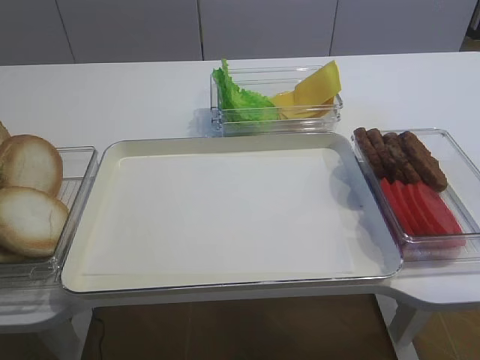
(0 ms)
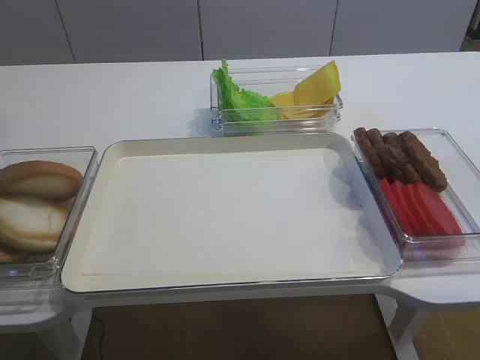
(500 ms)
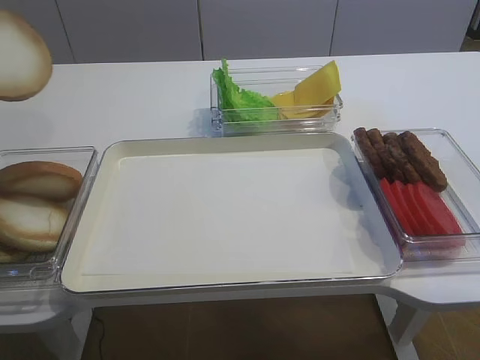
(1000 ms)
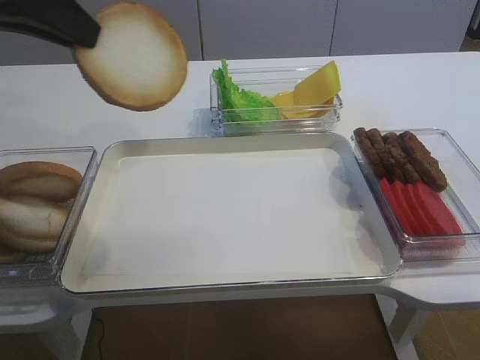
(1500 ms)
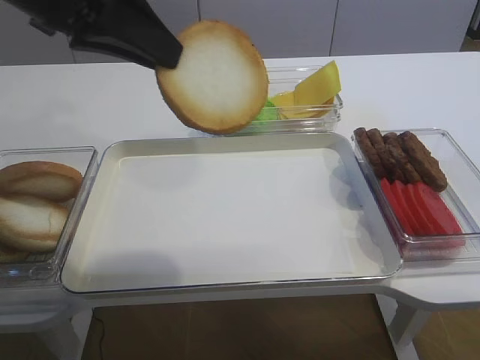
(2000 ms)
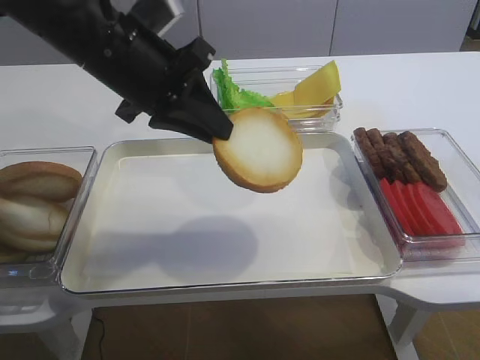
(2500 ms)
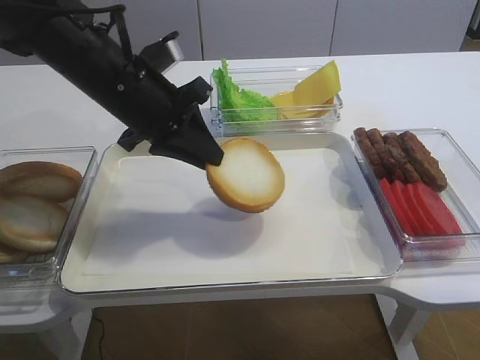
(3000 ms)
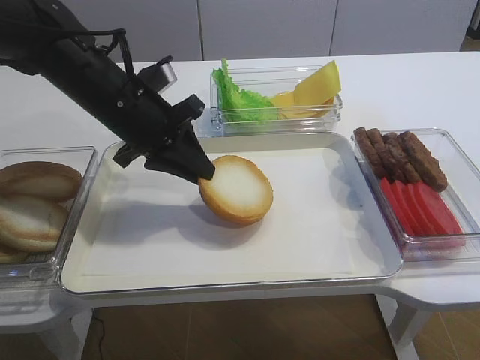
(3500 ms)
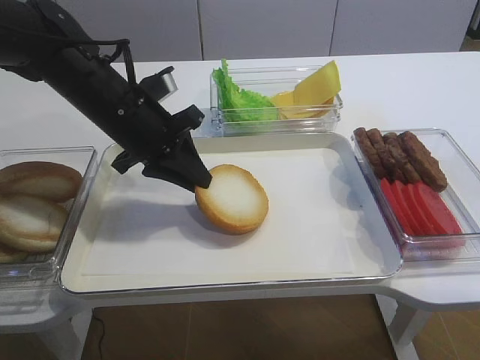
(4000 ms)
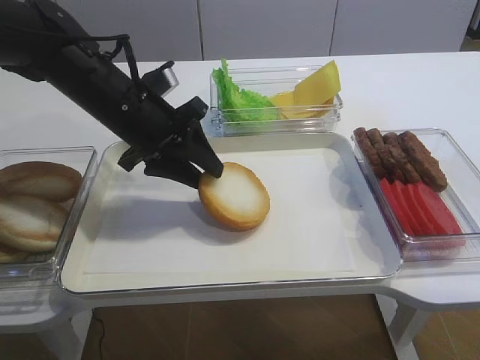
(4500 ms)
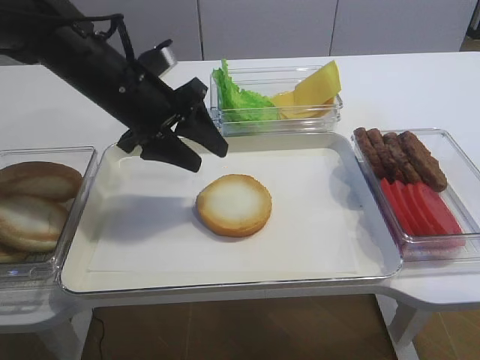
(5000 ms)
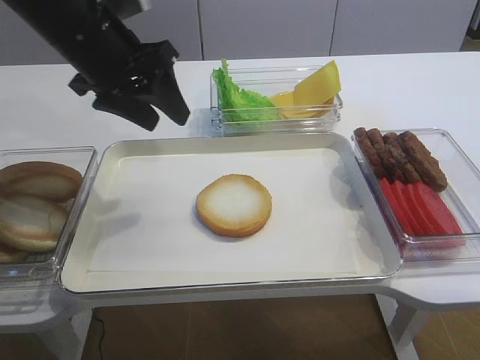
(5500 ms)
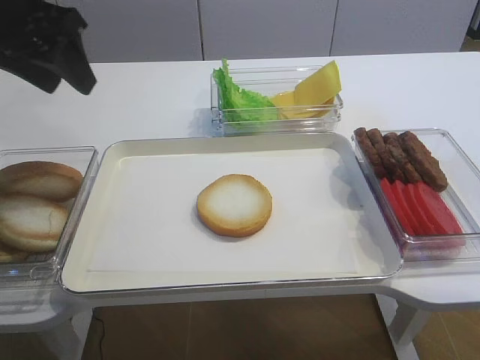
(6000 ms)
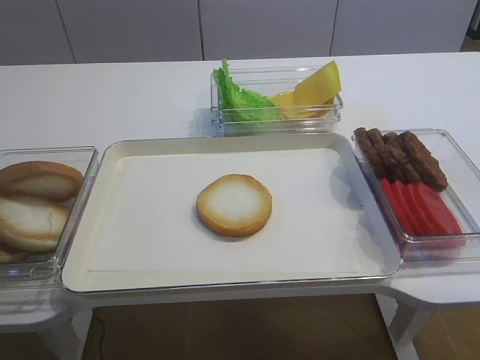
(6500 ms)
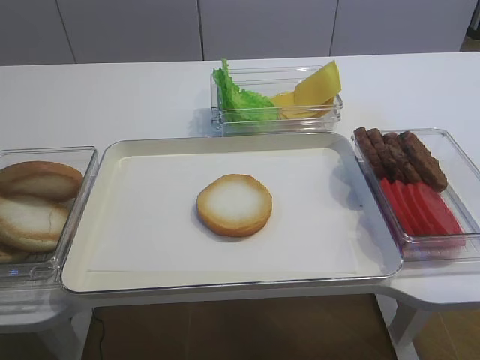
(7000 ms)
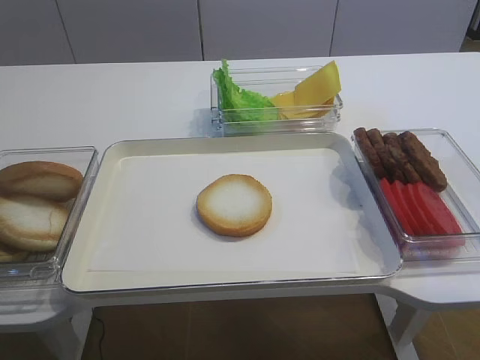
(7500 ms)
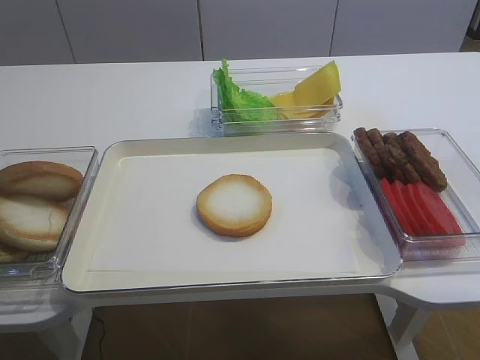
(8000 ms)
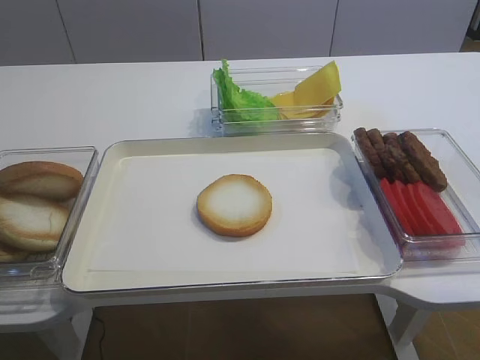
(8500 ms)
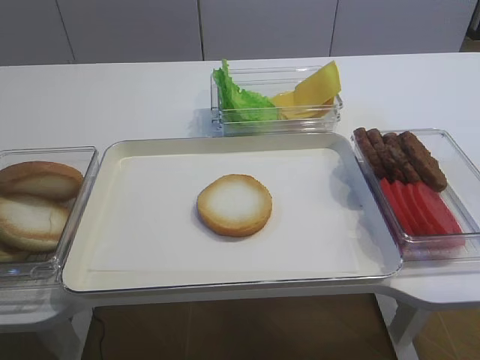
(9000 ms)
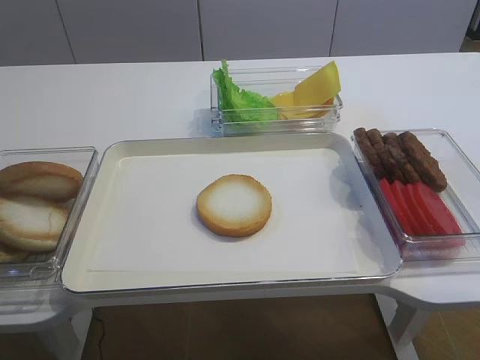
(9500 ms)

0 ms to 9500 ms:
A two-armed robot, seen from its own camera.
Step, 500 ms to 4500 ms: Place the bread slice on the tray with the left gripper.
0 ms to 2000 ms: The left gripper heads to the right and upward, covering roughly 20 cm.
2000 ms to 4000 ms: The left gripper is displaced downward and forward by approximately 20 cm.
4000 ms to 5500 ms: The left gripper travels upward by some 10 cm, and opens its fingers.
5500 ms to 7500 ms: The left gripper is displaced backward and to the left by about 30 cm.

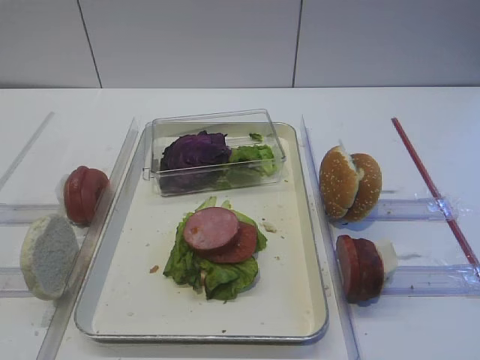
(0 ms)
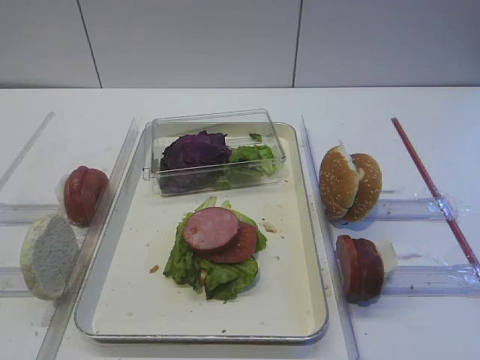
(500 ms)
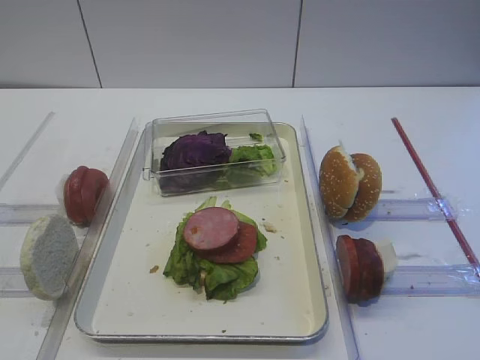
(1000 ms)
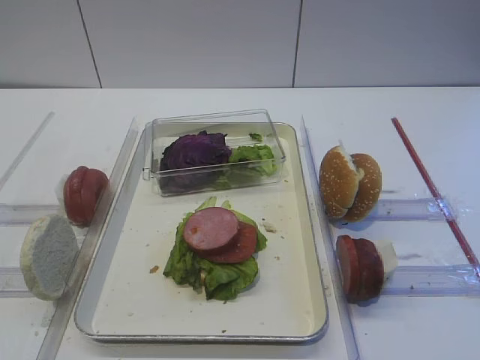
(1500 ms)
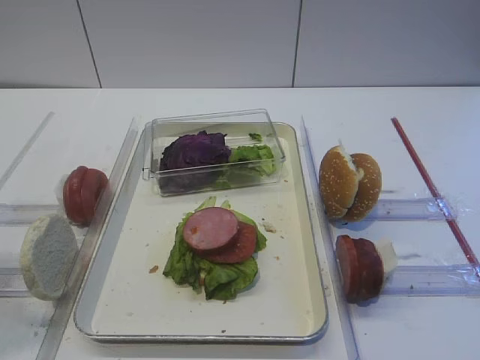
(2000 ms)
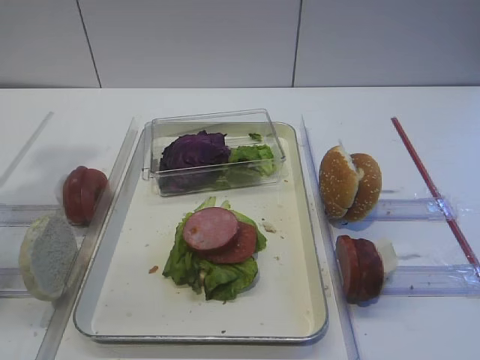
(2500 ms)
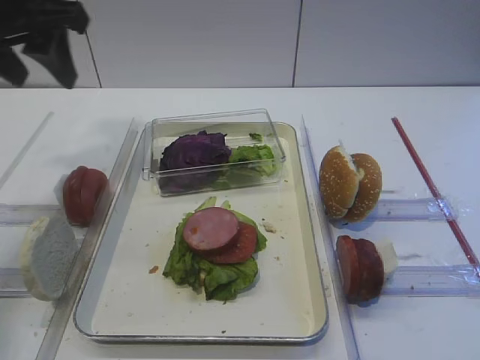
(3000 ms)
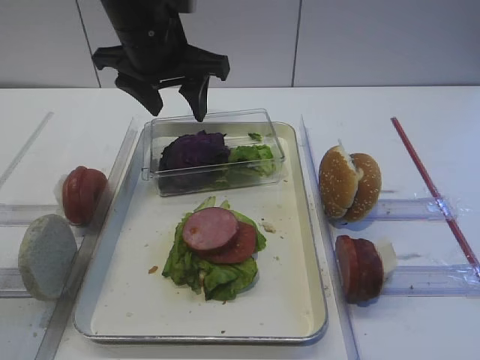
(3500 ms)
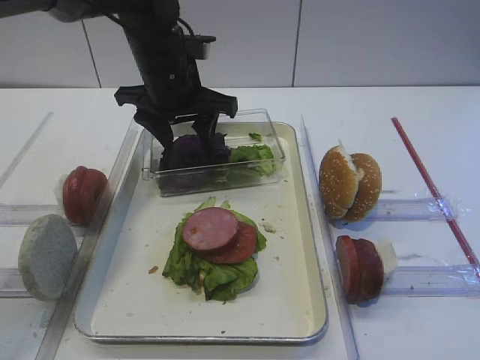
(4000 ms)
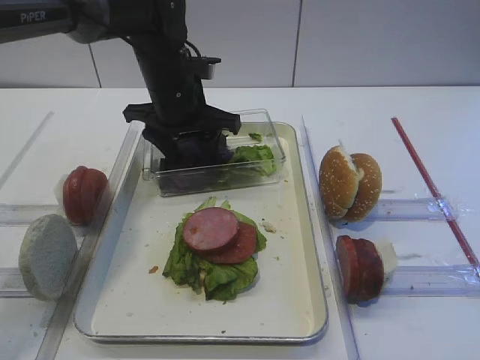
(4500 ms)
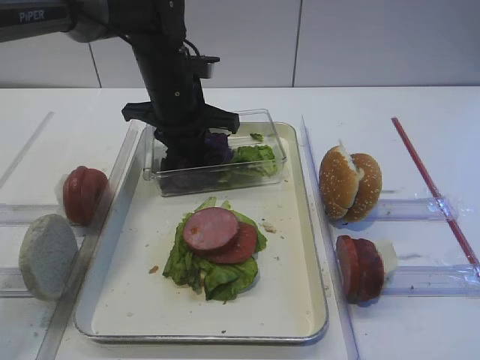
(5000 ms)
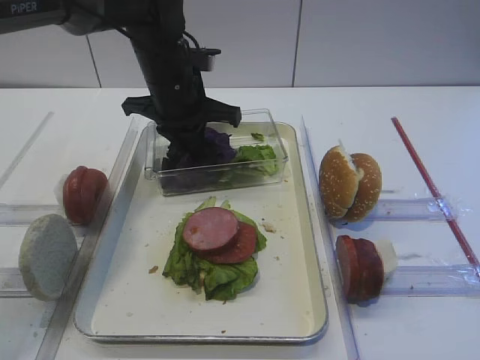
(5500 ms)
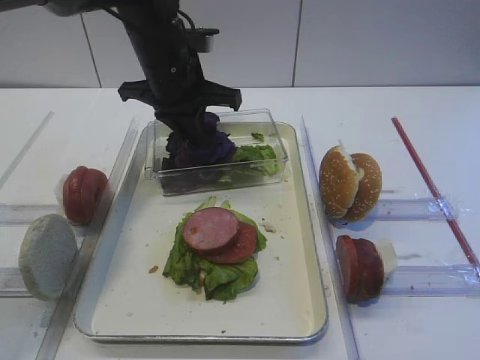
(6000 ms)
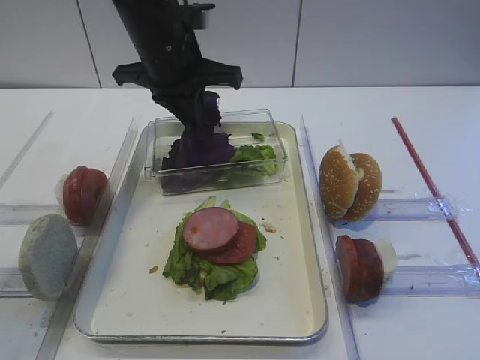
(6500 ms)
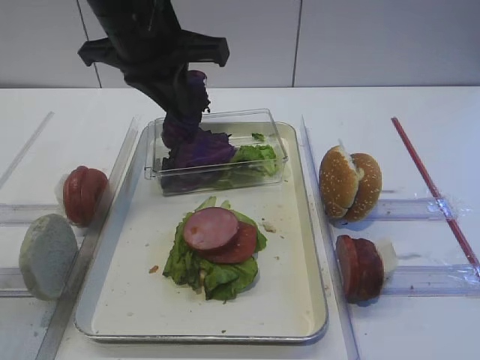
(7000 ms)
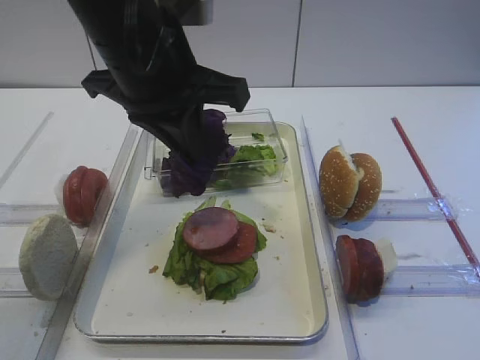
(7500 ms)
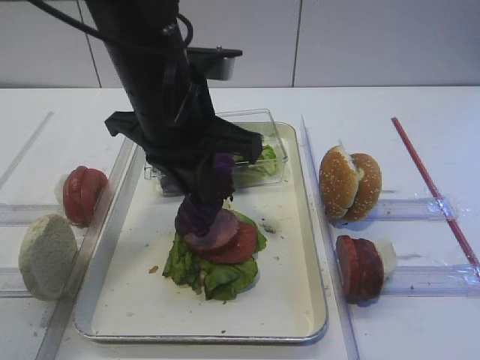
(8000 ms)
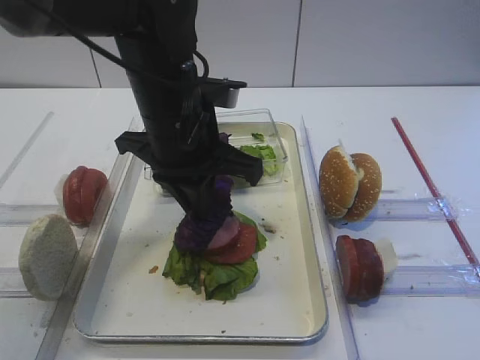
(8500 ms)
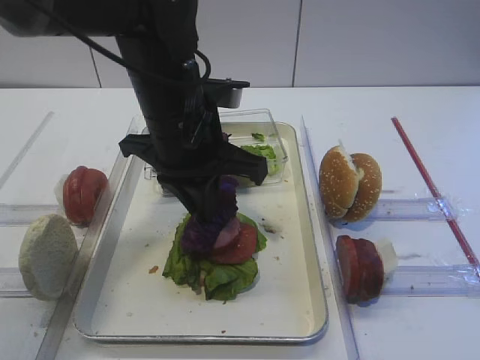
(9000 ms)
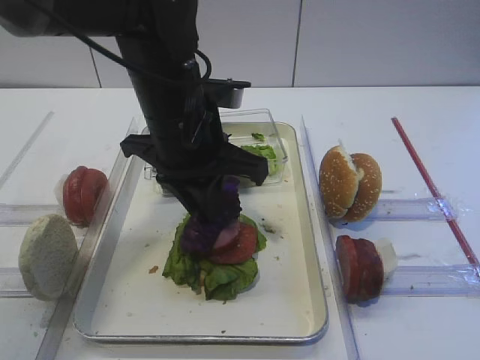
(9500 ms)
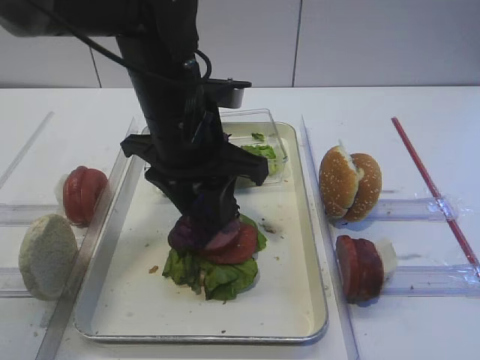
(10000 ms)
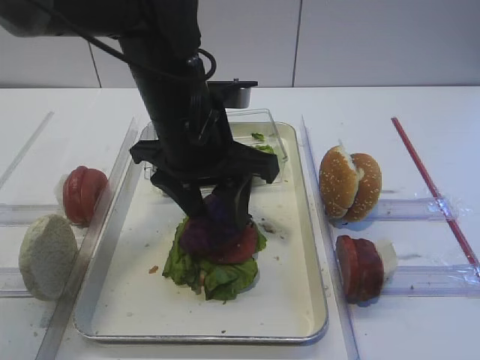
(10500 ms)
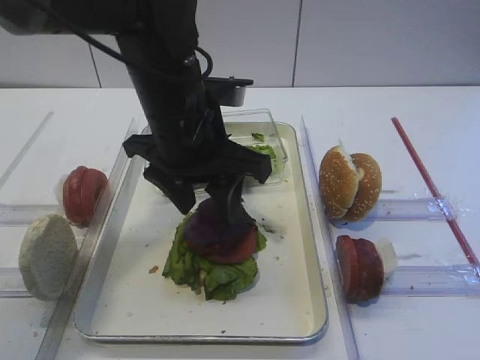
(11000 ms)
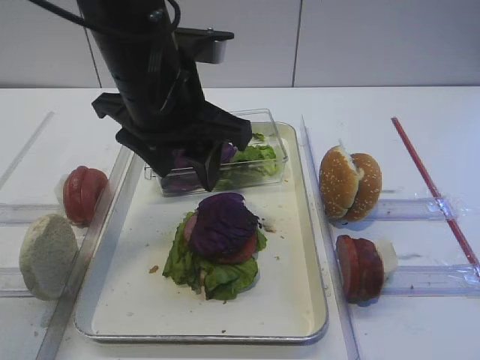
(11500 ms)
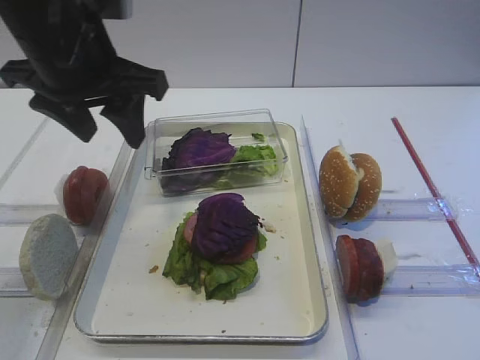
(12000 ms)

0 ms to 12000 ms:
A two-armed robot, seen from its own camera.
Step, 0 ms to 7000 ms: Pick up the purple cabbage with the left gripper.
Step, 7500 ms to 11000 ms: Place the purple cabbage on the cutlet with the left gripper.
2000 ms to 4000 ms: The left gripper shifts some 40 cm forward and to the right, and opens. Meanwhile the right gripper closes its fingers.
4000 ms to 6000 ms: The left gripper closes.
6000 ms to 8000 ms: The left gripper moves backward, about 10 cm.
8000 ms to 10000 ms: The left gripper opens up.
10000 ms to 12000 ms: The left gripper shifts approximately 10 cm to the left and upward.

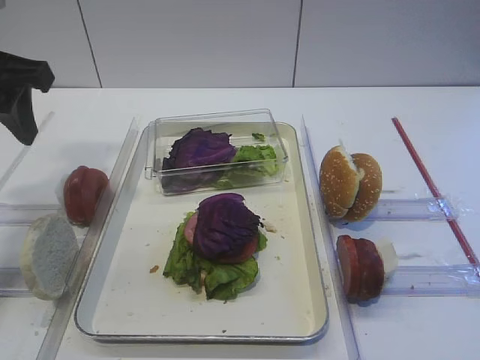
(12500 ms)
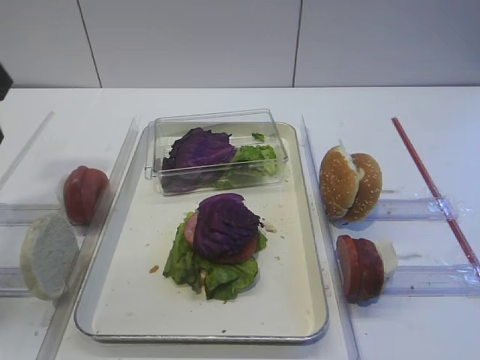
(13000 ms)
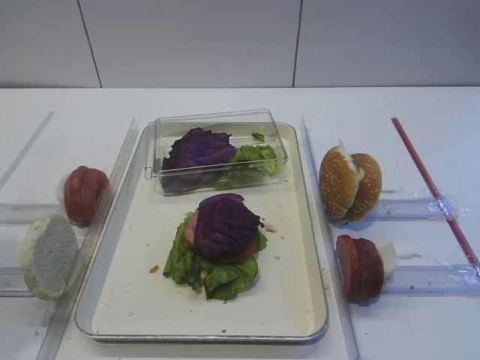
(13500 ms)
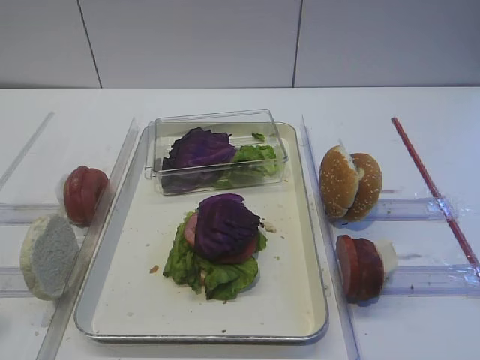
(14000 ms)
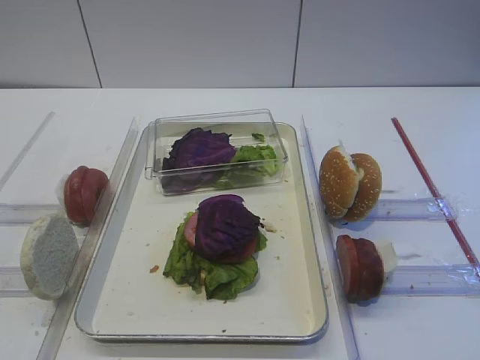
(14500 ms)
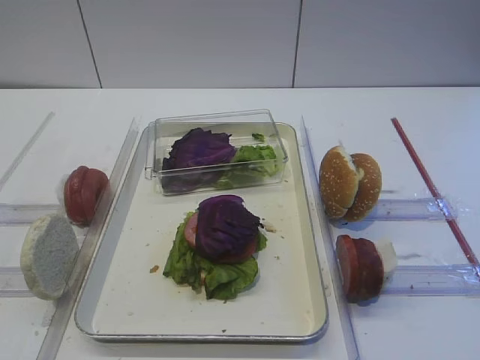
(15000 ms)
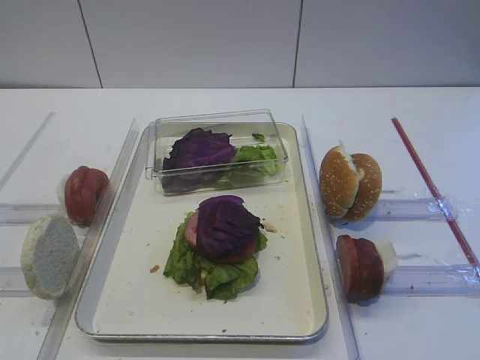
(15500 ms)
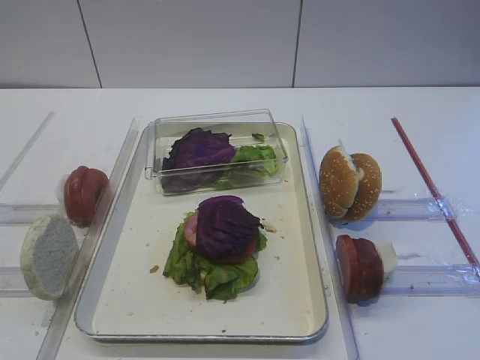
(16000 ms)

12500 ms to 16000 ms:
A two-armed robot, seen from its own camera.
12500 ms to 14500 ms: The left gripper moves backward, about 25 cm.

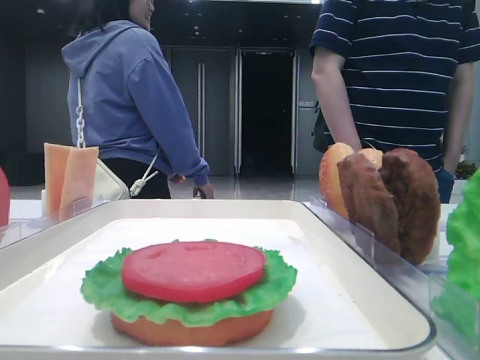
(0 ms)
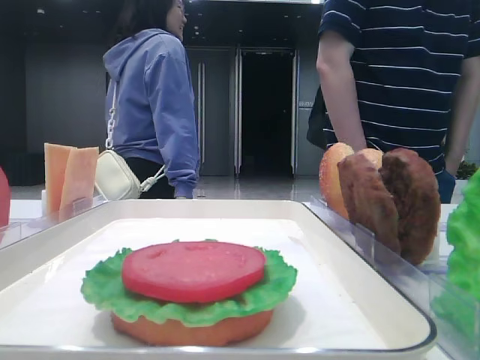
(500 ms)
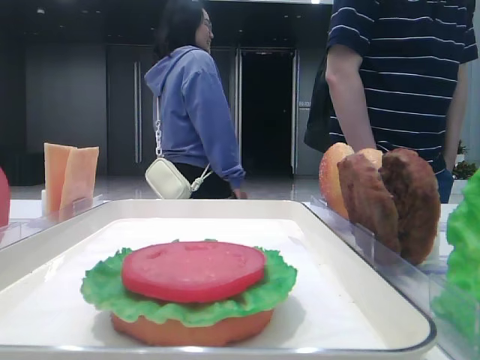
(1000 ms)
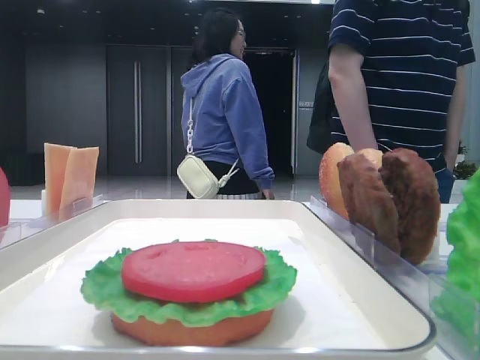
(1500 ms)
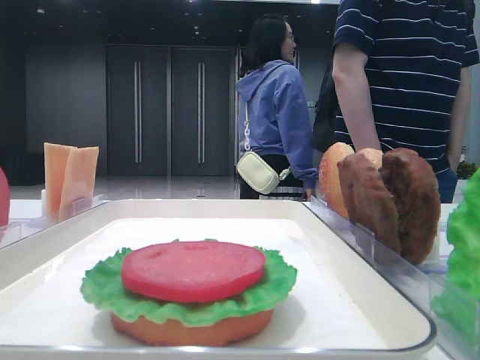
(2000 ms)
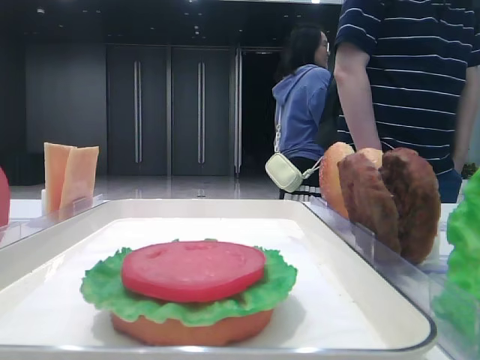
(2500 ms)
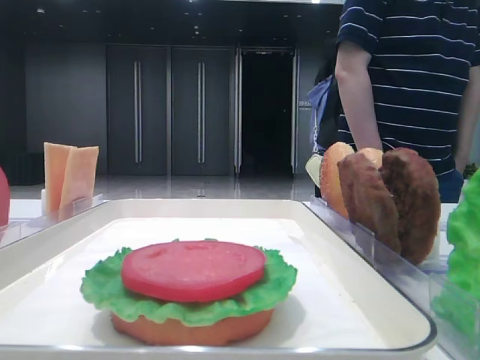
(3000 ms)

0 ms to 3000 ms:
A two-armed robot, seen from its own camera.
1500 ms to 3000 ms: The right gripper travels forward by approximately 20 cm.
